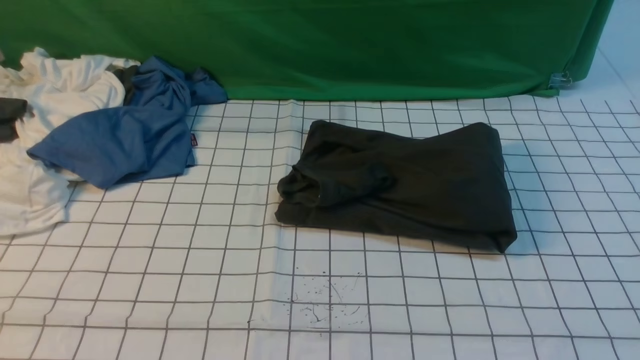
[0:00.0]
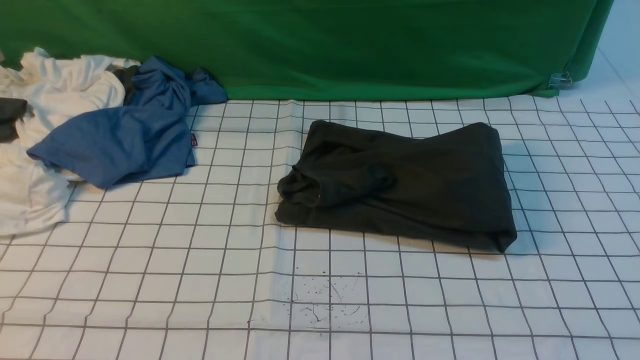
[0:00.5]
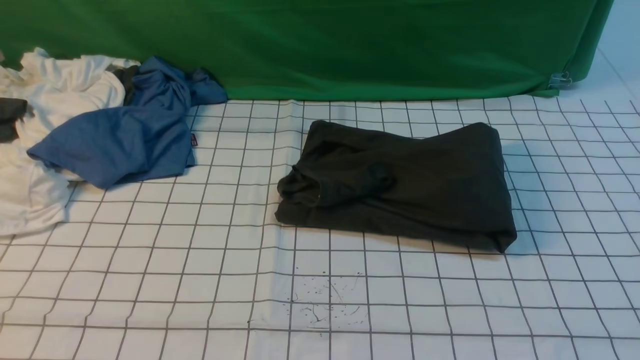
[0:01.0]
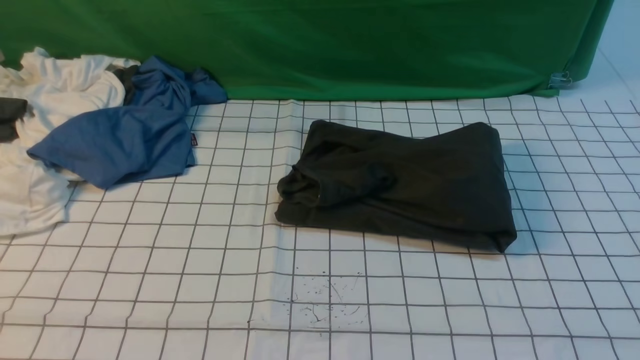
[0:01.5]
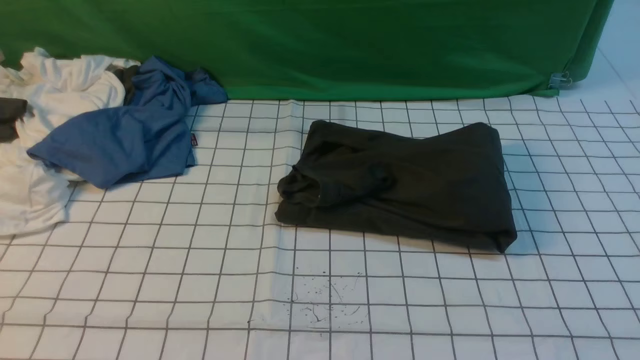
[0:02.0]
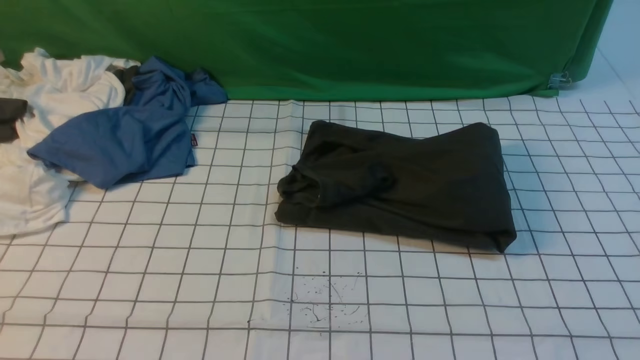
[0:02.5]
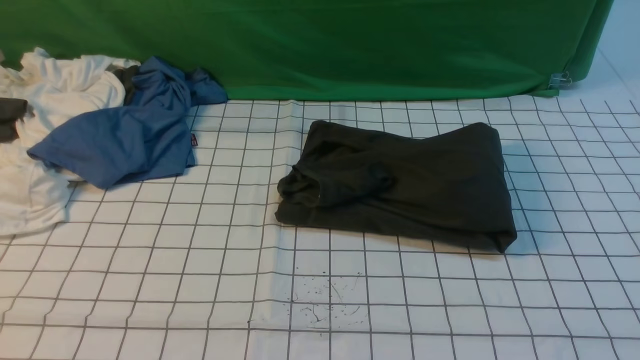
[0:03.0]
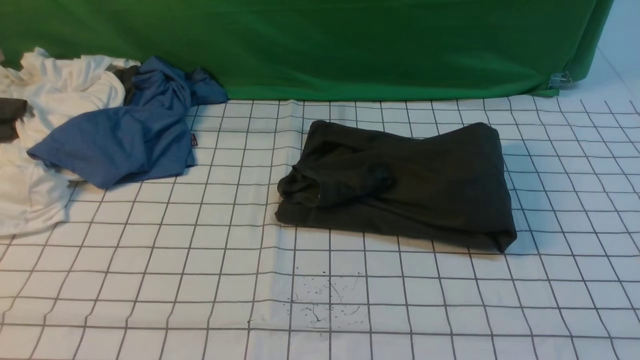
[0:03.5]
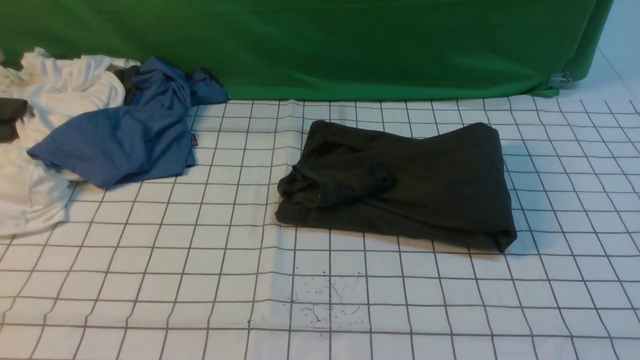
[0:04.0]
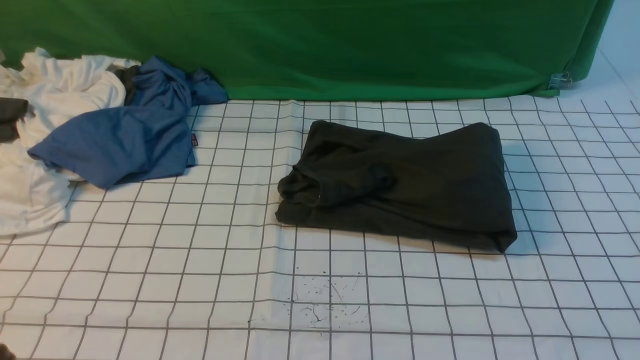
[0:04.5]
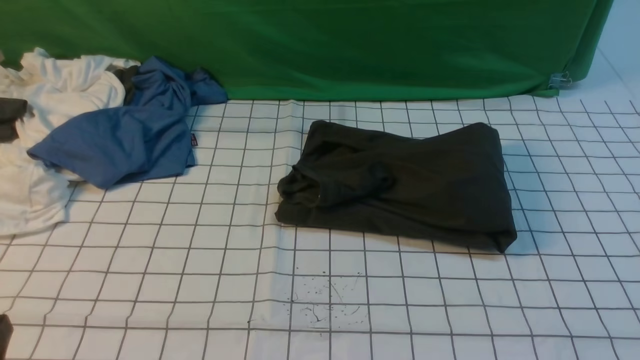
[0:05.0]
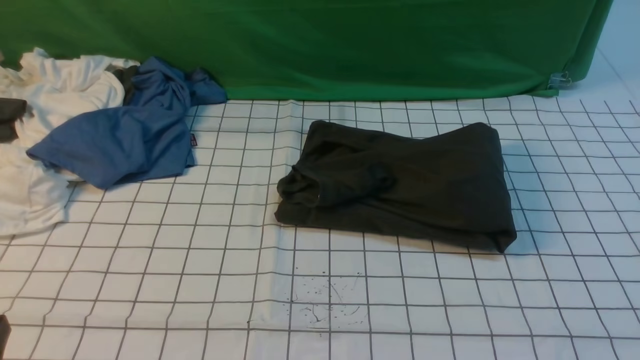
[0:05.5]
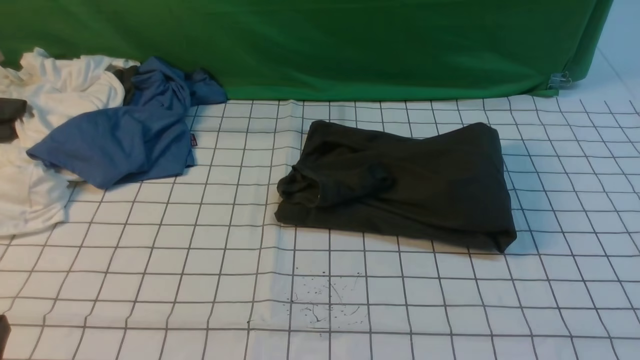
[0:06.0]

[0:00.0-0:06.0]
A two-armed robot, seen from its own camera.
0:02.0 to 0:04.0: Both grippers stay about where they are.
